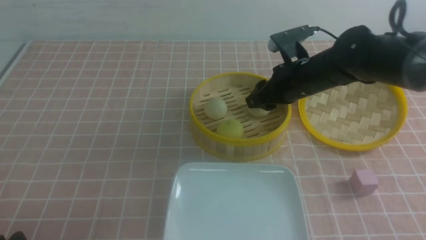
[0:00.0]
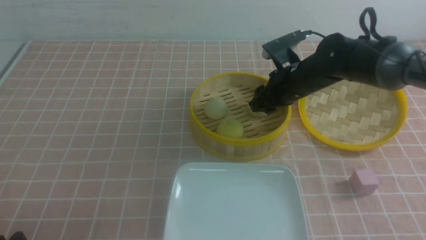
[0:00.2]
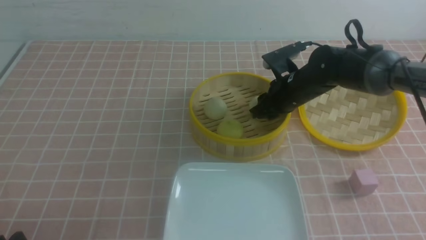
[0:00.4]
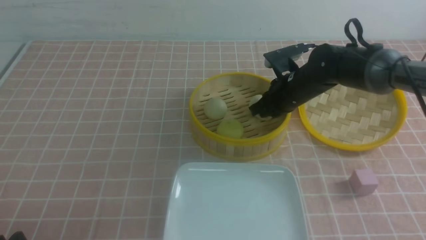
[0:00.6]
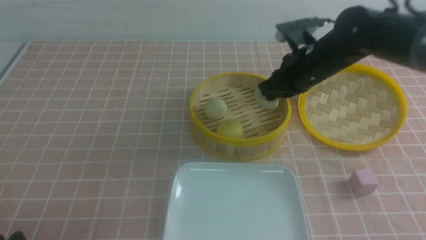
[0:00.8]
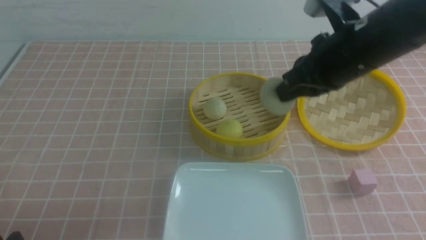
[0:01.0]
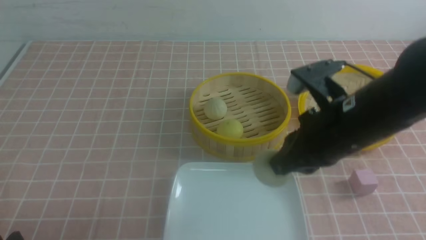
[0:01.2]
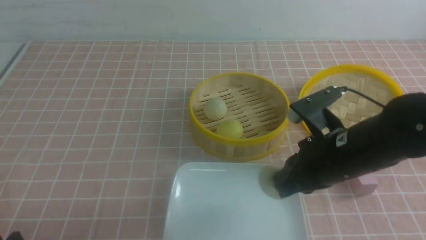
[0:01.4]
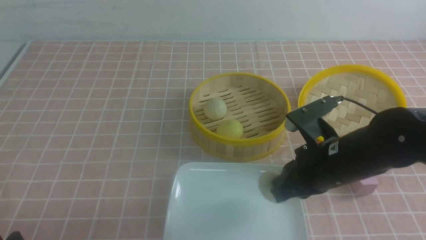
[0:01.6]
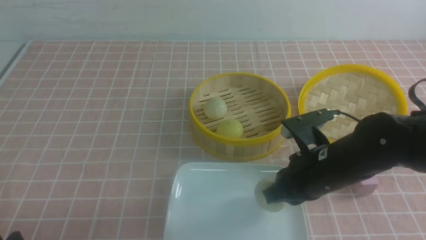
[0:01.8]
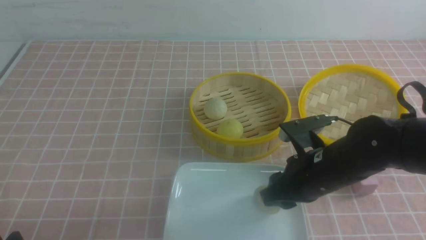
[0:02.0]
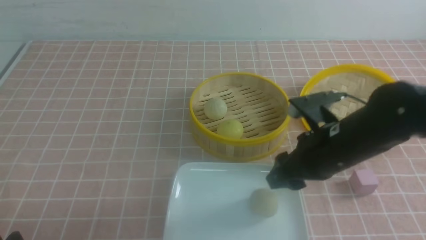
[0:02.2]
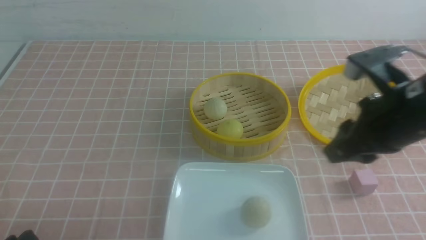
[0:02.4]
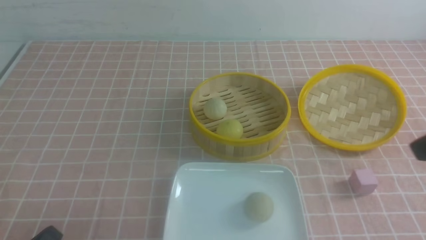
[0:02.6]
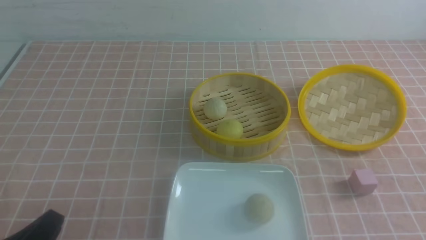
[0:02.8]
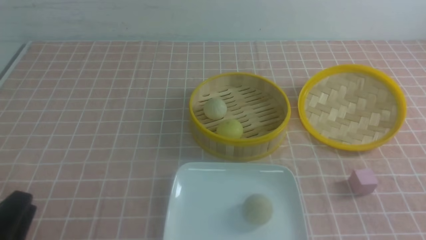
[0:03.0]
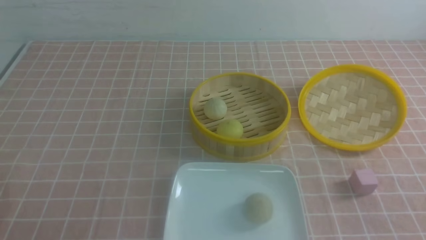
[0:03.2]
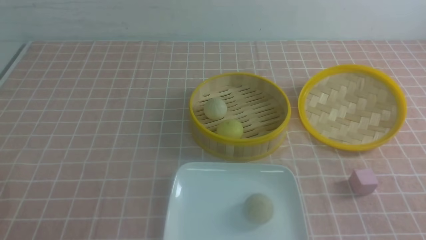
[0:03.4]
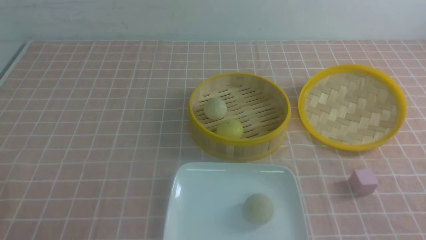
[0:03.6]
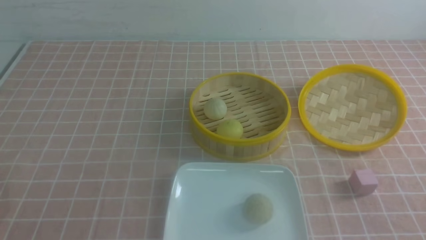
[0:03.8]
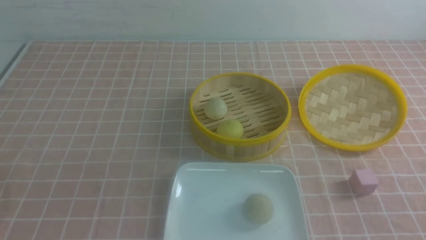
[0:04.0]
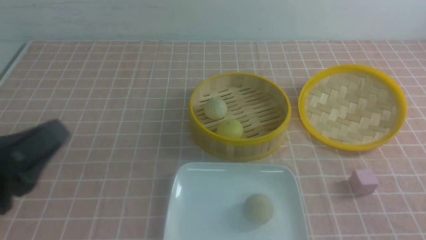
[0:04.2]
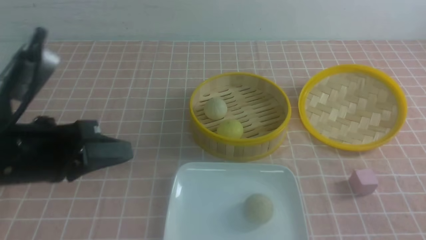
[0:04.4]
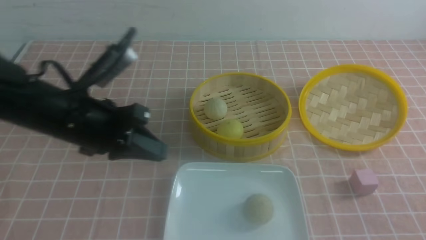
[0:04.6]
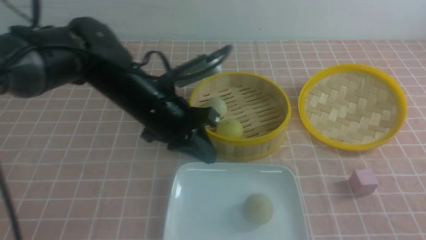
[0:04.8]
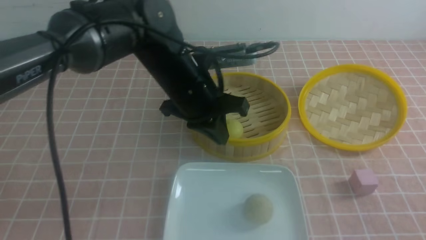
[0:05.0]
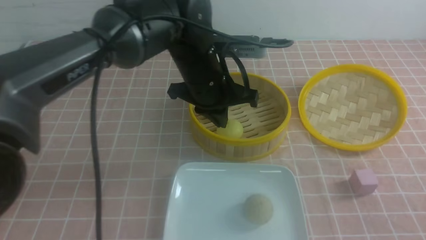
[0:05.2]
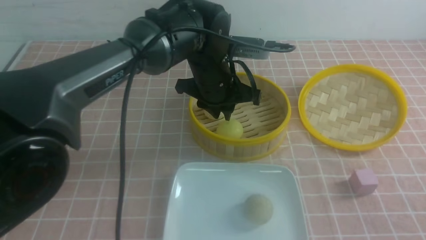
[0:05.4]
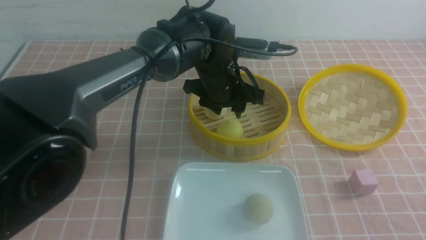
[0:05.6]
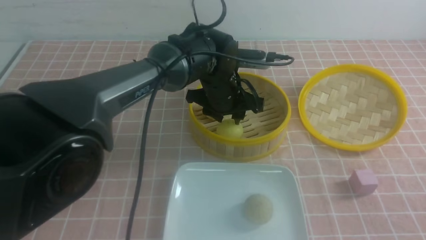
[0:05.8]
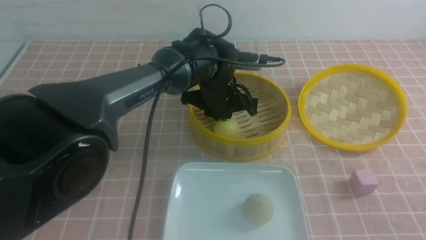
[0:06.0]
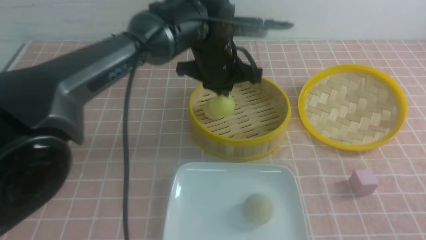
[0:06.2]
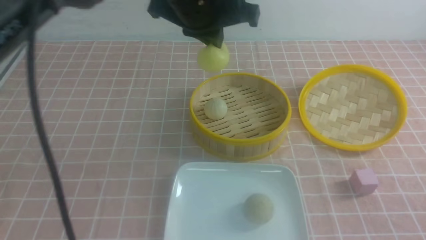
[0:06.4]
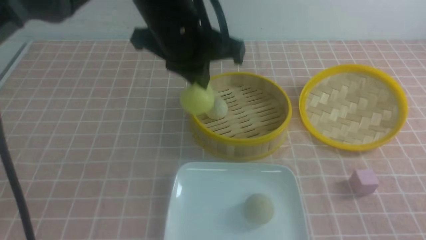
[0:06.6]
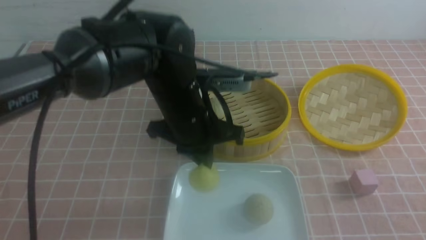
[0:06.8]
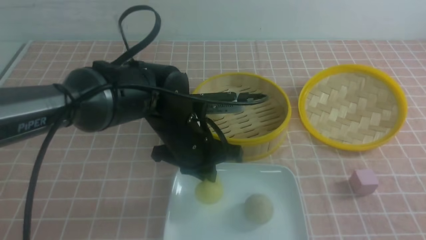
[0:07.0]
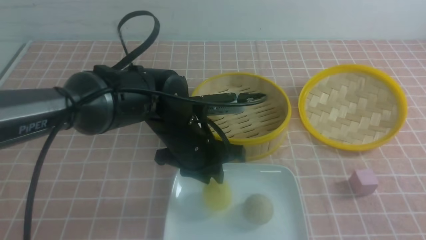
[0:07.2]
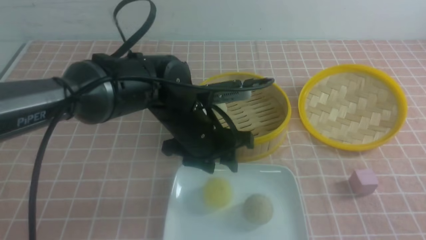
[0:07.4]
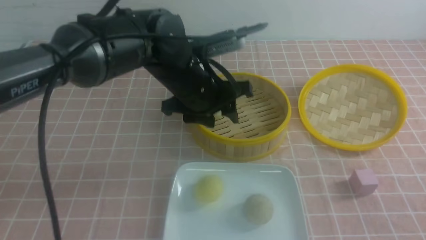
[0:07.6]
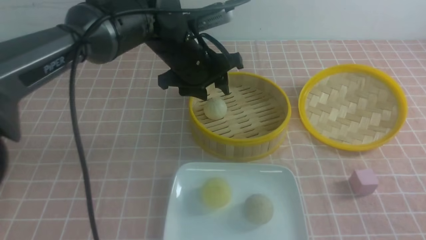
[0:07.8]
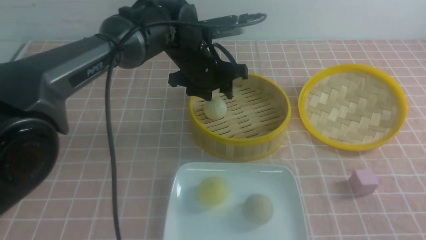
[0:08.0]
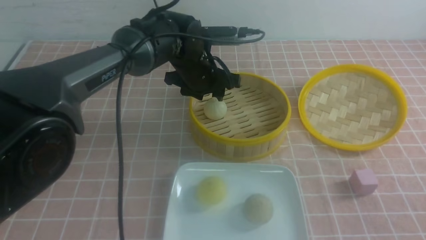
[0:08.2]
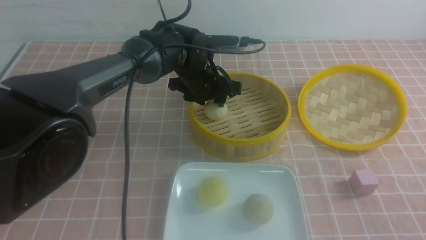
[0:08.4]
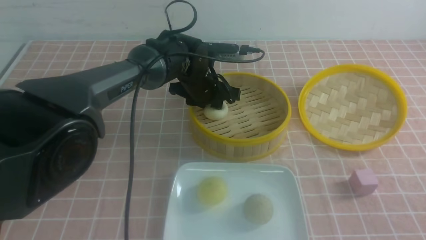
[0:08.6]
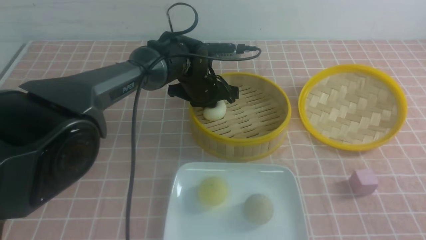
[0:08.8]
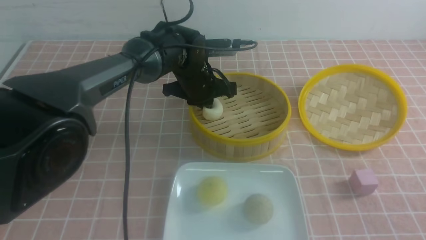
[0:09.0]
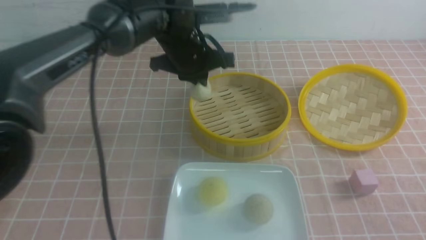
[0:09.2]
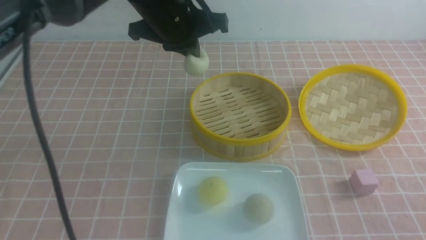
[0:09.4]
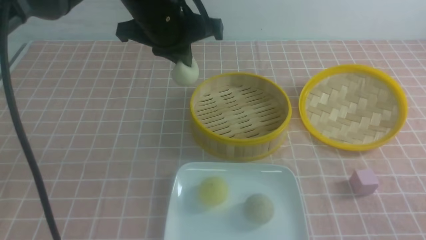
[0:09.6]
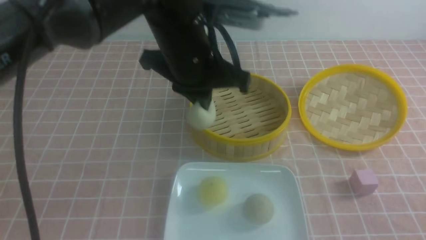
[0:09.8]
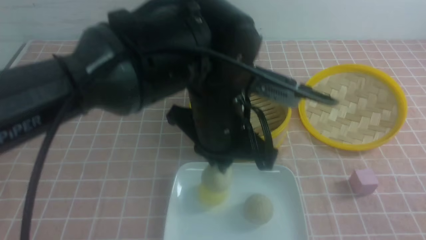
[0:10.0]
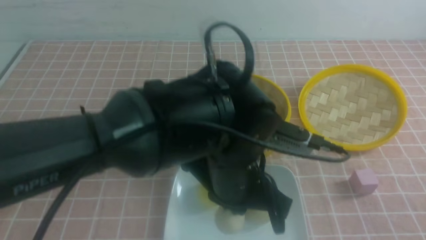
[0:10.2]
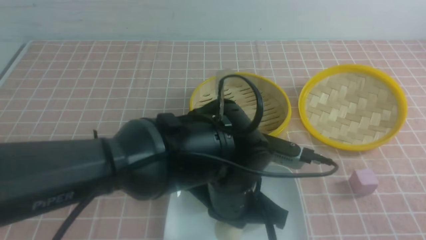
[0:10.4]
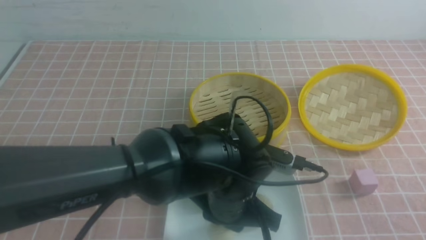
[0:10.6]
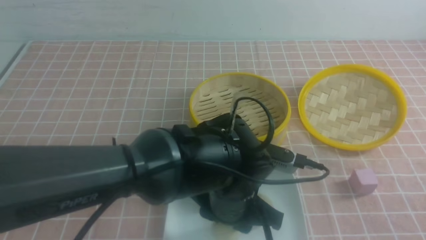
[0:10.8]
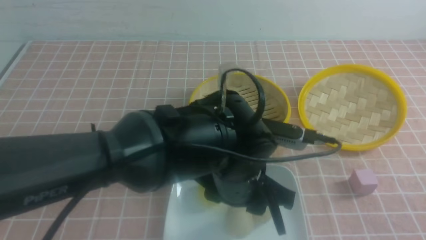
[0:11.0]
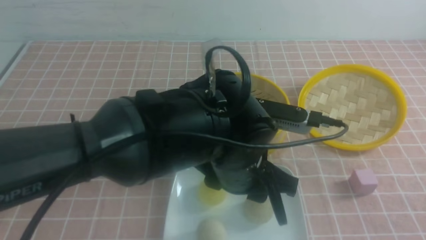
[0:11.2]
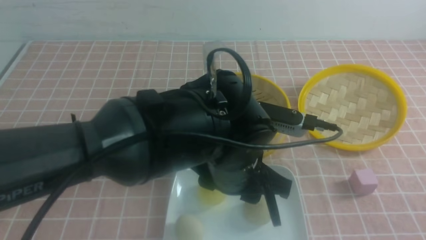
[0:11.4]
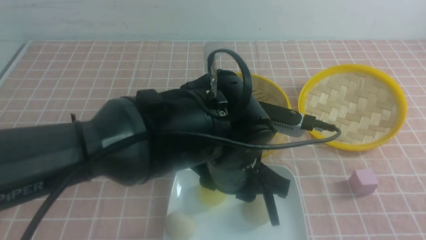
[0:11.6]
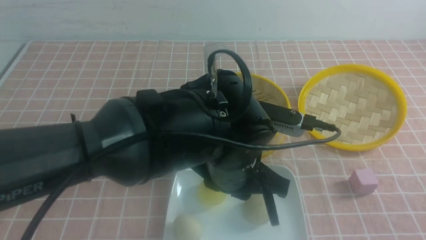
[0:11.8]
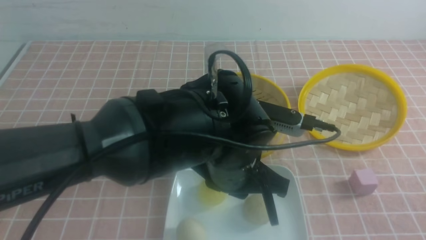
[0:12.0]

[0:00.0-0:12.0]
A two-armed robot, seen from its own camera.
Step, 0:00.6 to 0:02.0: use the right arm to put the steamed stuffed bun into the plate.
Step, 0:02.2 to 0:06.0: use the left arm to grab the steamed stuffed bun that is closest to it.
Step, 0:06.2 to 0:07.2: use the left arm to put the steamed stuffed bun into the plate.
Step, 0:07.4 to 0:08.6: use the left arm to grab the steamed stuffed bun that is closest to it.
Step, 0:08.8 to 0:10.8: use the left arm to put the steamed stuffed bun into the plate.
0:00.0 to 0:01.6: The right gripper travels backward by about 15 cm, and closes.
0:01.6 to 0:03.0: The right gripper is displaced backward, to the right and upward by some 25 cm, and opens, then closes once more.
0:03.0 to 0:04.4: The left gripper goes roughly 20 cm forward, upward and to the right, and closes its fingers.
0:04.4 to 0:06.0: The left gripper shifts some 30 cm to the right and forward, and opens, then closes once more.
0:06.0 to 0:07.6: The left gripper goes up and down, approximately 15 cm each way, reversing 2 times, and opens.
0:07.6 to 0:09.0: The left gripper shifts approximately 10 cm forward, and closes up.
0:09.0 to 0:10.4: The left gripper shifts some 25 cm backward.
0:10.4 to 0:12.0: The left gripper opens, then closes once more, while the right gripper closes up.

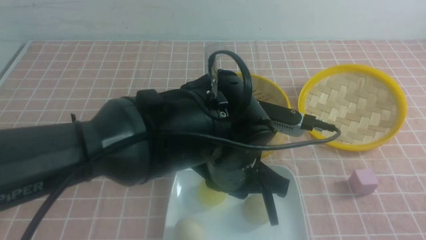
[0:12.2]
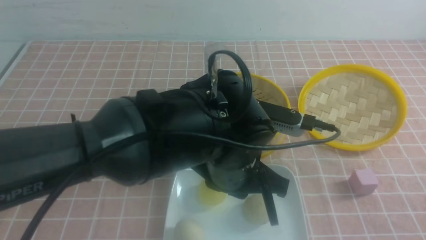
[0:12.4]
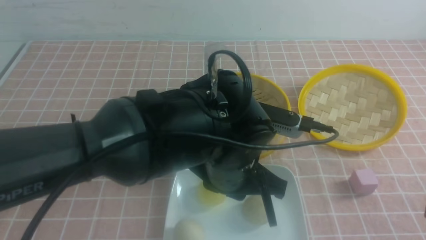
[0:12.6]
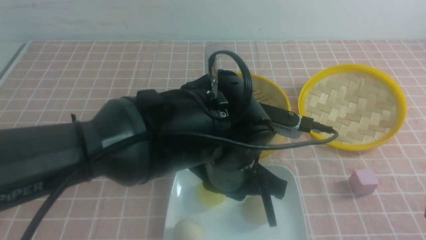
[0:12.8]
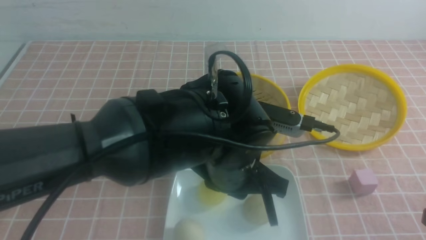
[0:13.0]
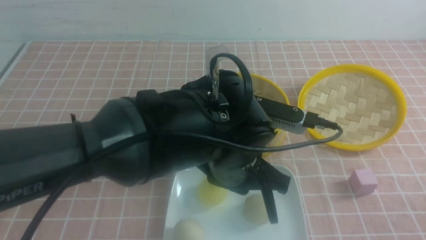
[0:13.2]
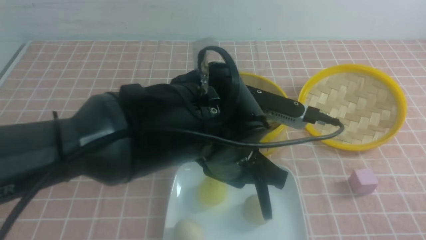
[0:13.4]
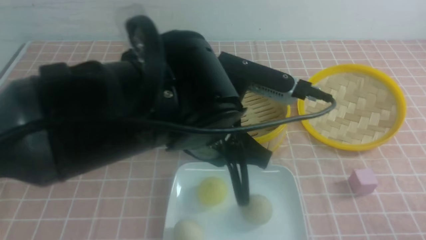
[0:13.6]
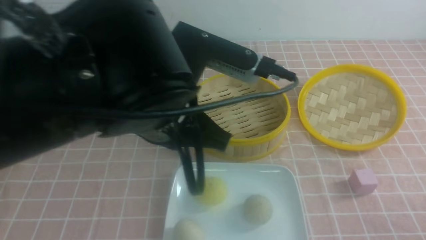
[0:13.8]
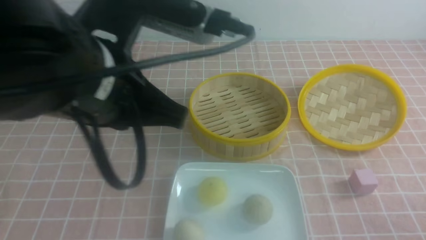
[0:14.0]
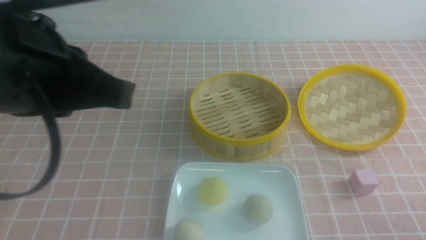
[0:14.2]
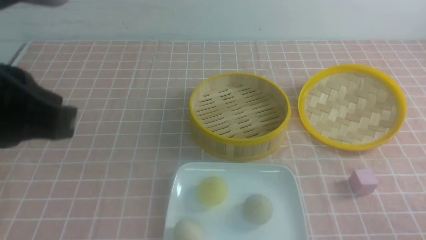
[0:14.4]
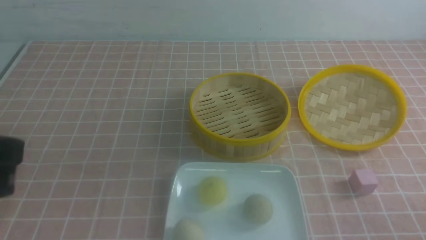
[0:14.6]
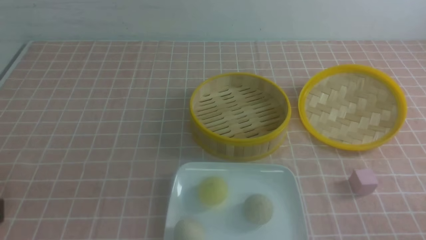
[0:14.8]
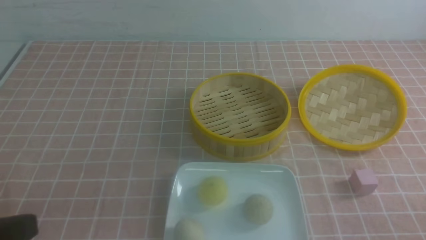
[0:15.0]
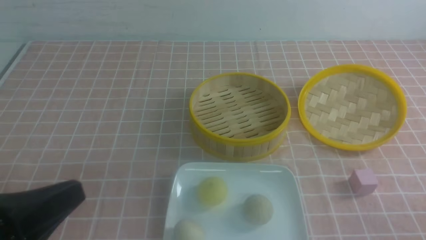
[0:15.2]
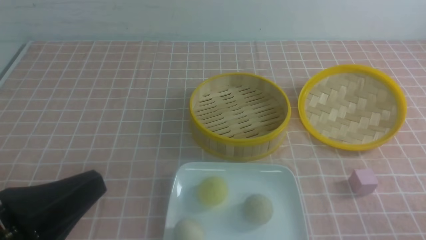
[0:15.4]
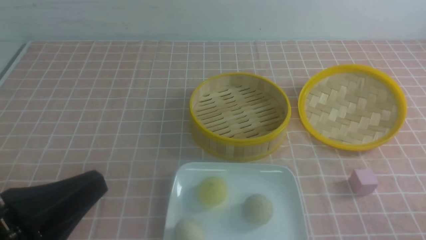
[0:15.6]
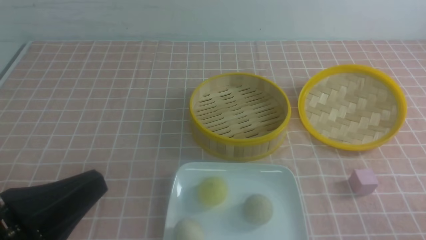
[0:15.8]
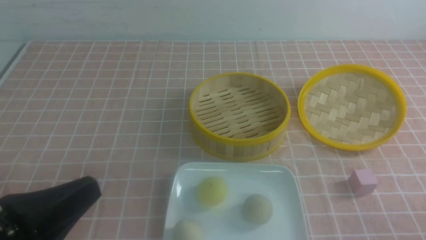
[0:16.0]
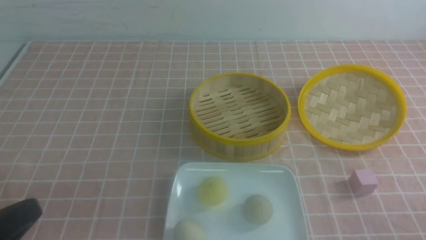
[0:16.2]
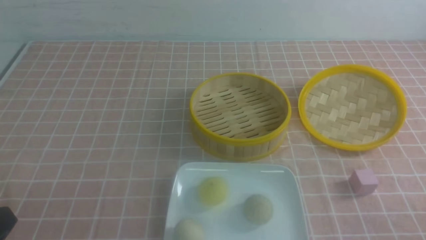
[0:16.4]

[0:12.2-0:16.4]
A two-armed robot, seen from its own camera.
0:12.2 to 0:13.6: The right gripper moves downward, approximately 10 cm; the left gripper is displaced upward by roughly 5 cm.
0:13.6 to 0:15.0: The left gripper goes some 25 cm to the left and backward.
0:15.0 to 0:16.4: The left gripper moves downward, roughly 10 cm.
